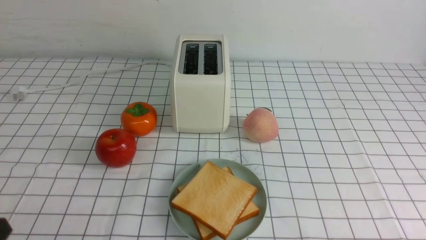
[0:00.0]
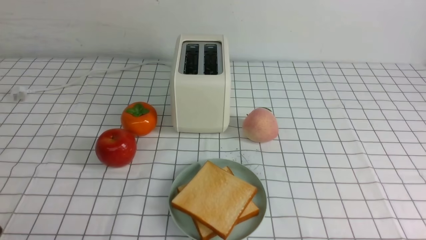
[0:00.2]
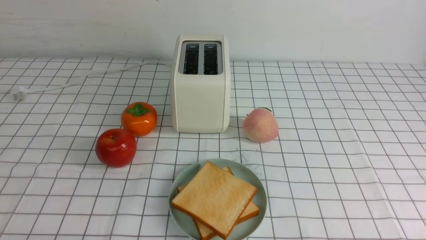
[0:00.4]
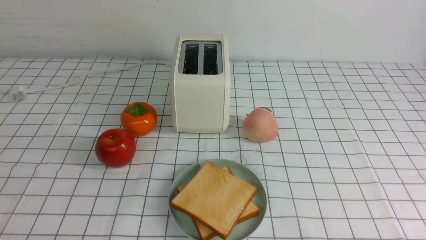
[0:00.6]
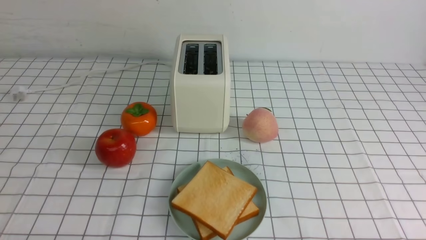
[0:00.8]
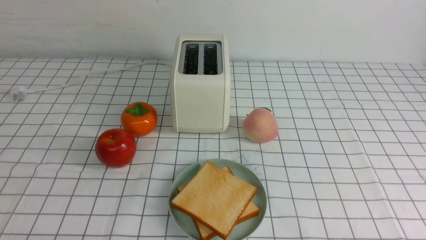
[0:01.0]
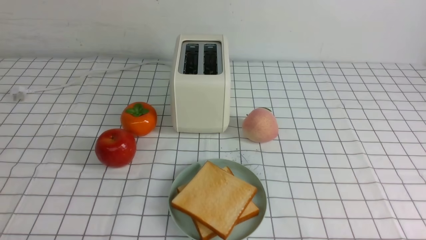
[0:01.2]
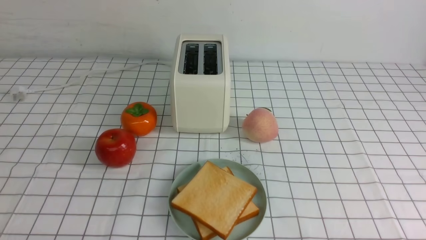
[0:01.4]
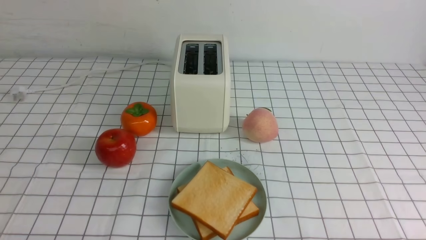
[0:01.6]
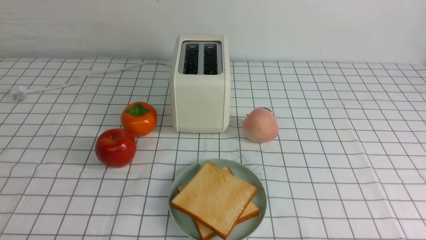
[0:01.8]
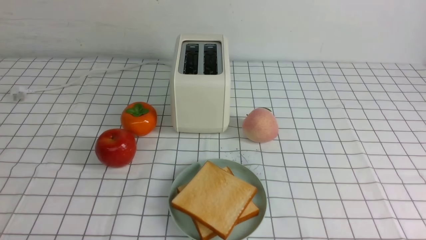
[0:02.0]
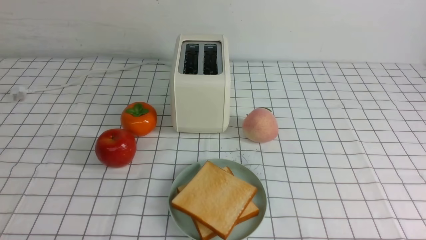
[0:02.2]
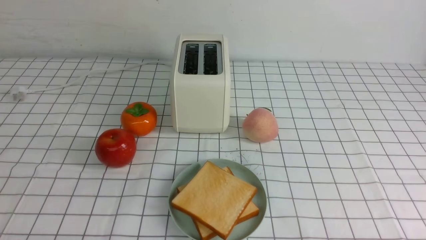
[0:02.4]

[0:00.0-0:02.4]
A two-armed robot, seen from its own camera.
Task of the whole recording: take toasted bread from bread machine on white checkered table place on plate.
0:01.2 to 0:02.4: The two grippers keep their place.
